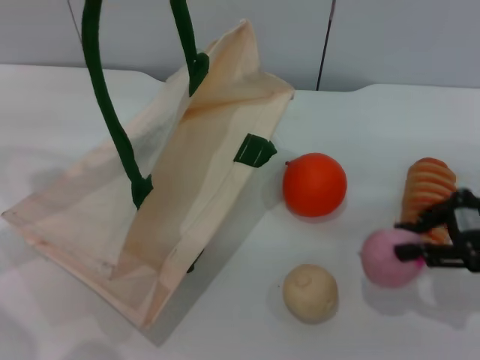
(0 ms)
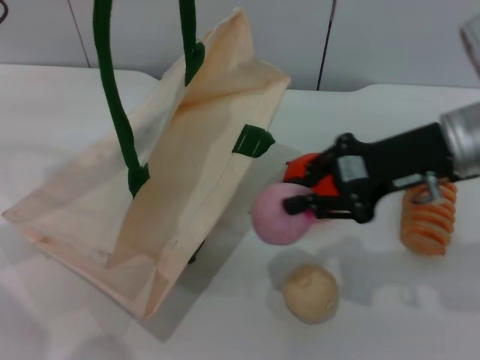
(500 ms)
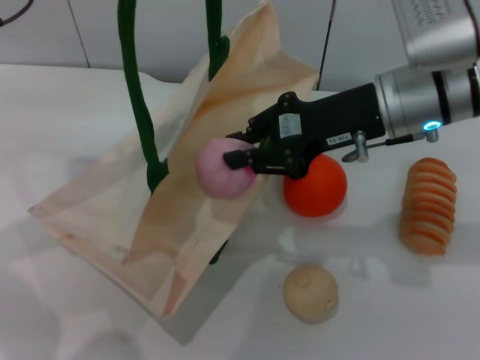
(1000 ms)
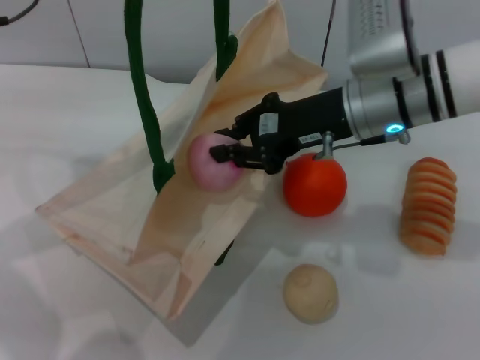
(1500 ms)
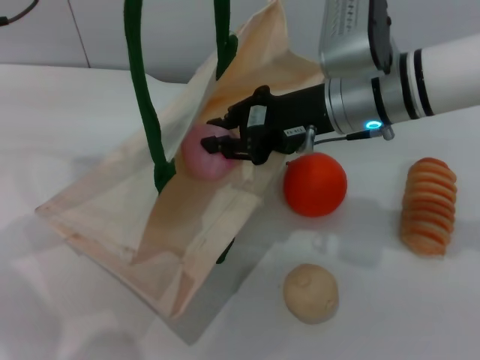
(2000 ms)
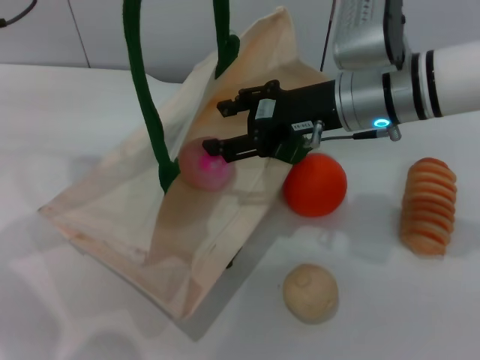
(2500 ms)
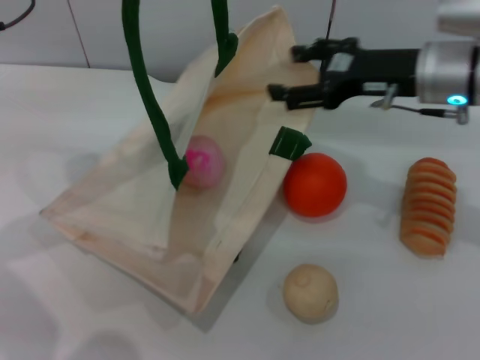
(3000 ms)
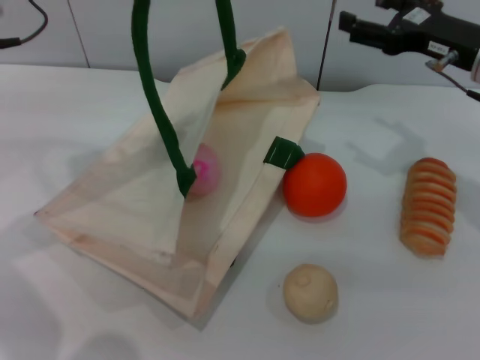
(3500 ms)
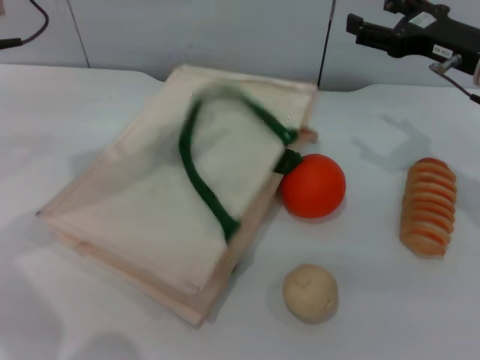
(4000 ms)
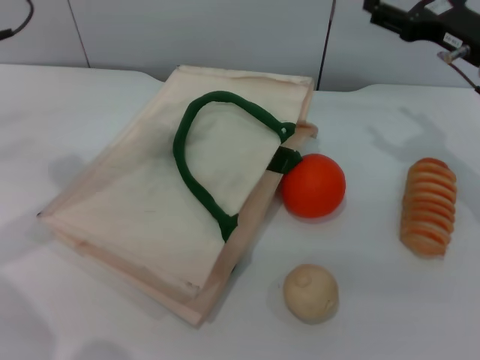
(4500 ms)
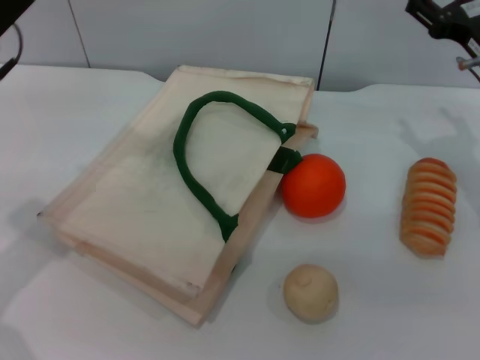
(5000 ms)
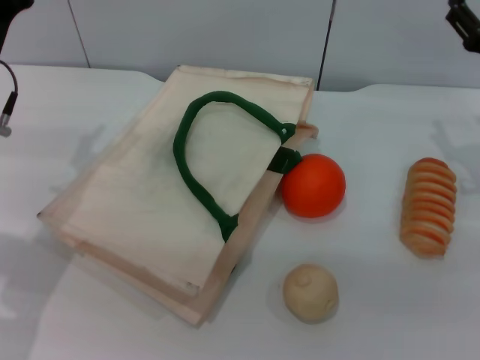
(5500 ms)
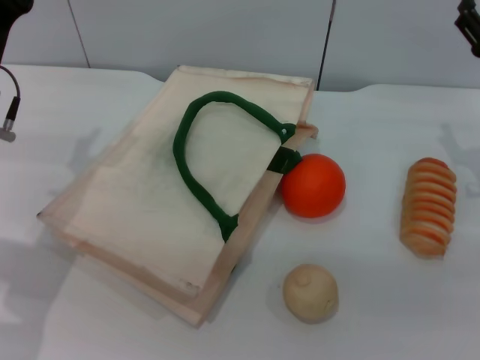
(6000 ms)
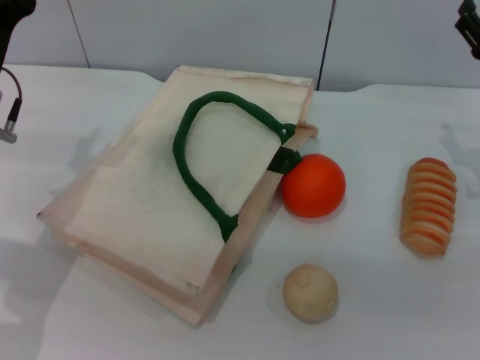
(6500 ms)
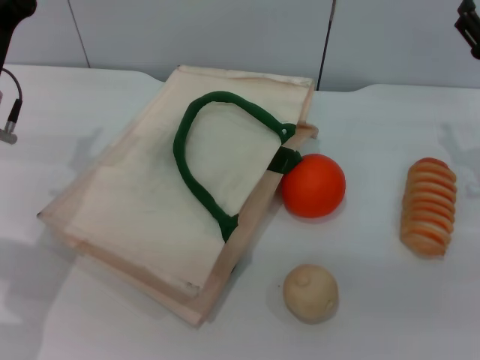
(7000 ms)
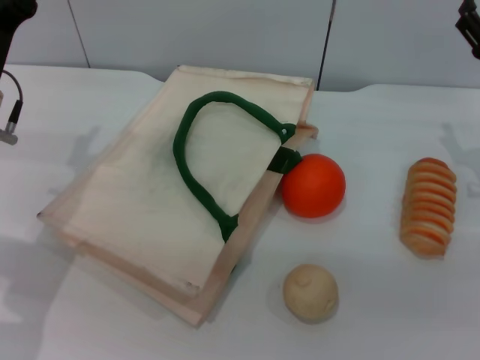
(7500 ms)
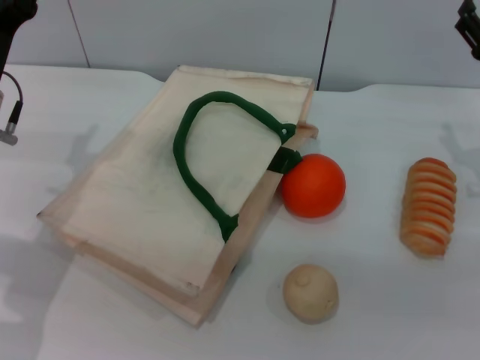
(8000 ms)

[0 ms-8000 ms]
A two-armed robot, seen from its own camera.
Task of the whole recording: pick up the peach from the table and place it in the white handbag.
Step, 500 ms to 3000 ms: Place the peach into the woven bag with the right gripper.
Step, 3500 ms to 4000 ms: Lower the woven bag with the left gripper to close it.
0 ms to 2000 ms: The right gripper moves to the left, roughly 20 cm.
2000 ms to 4000 ms: The right gripper heads to the right, covering some 15 cm, and opens its fingers.
4000 ms to 6000 ms: The right gripper moves downward, about 5 cm, while the left gripper shifts about 15 cm downward and backward, and opens its fingers.
6000 ms to 8000 ms: Neither gripper changes place.
